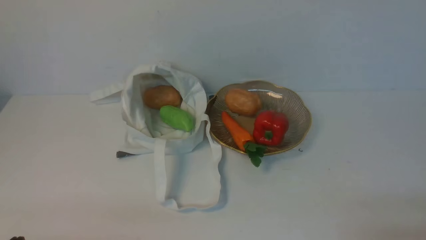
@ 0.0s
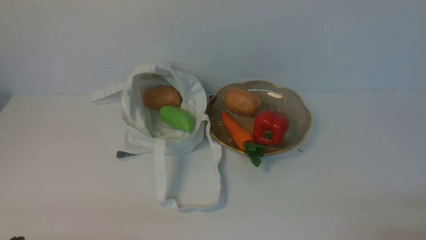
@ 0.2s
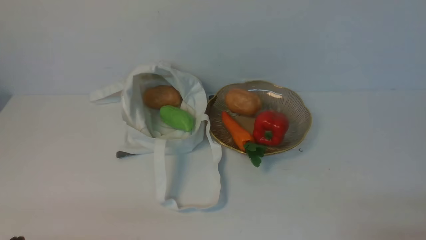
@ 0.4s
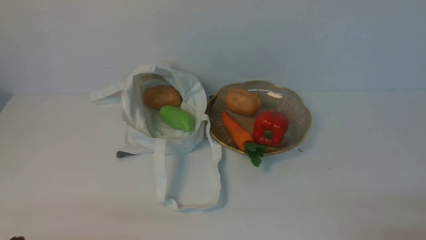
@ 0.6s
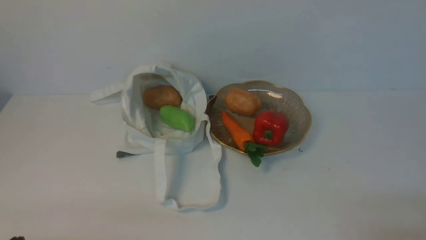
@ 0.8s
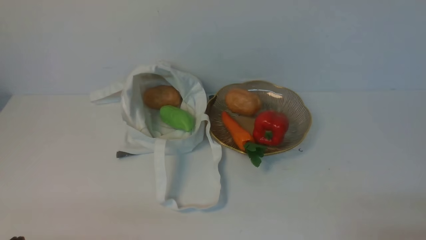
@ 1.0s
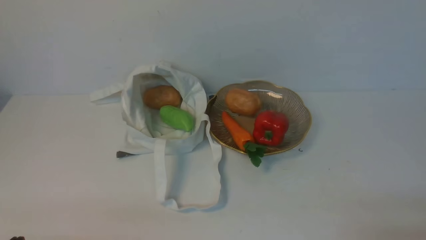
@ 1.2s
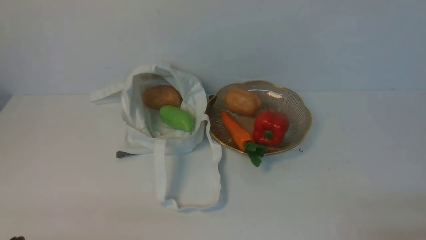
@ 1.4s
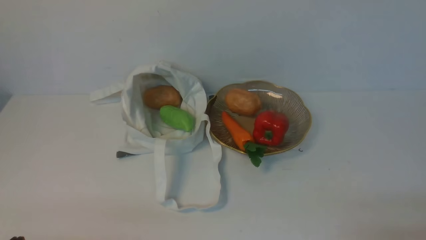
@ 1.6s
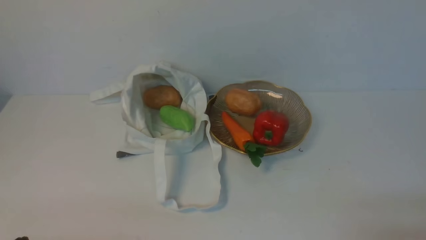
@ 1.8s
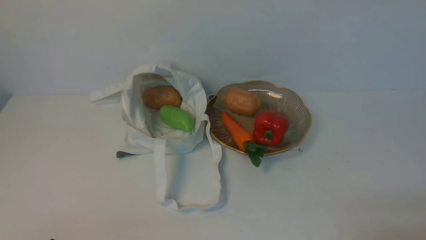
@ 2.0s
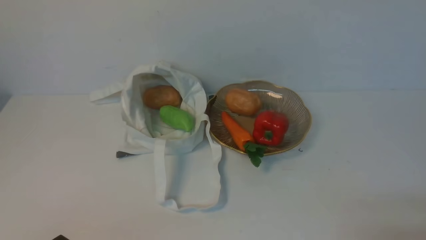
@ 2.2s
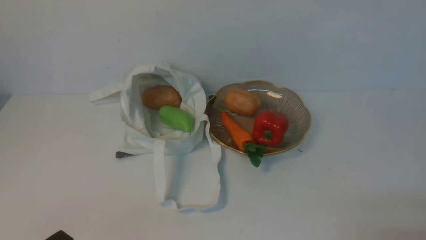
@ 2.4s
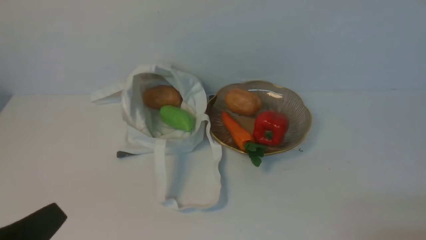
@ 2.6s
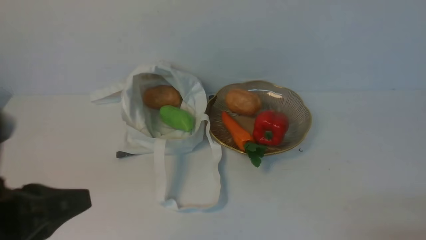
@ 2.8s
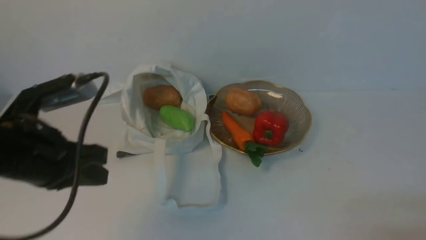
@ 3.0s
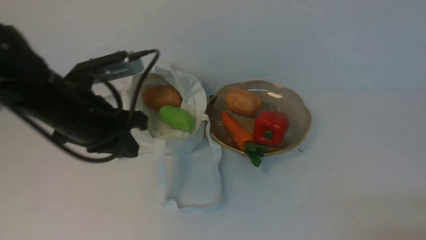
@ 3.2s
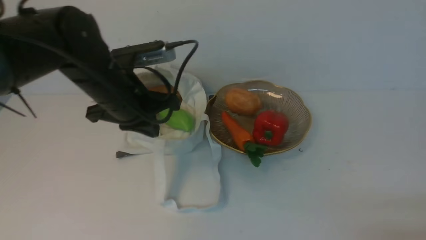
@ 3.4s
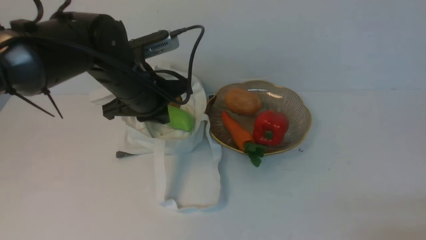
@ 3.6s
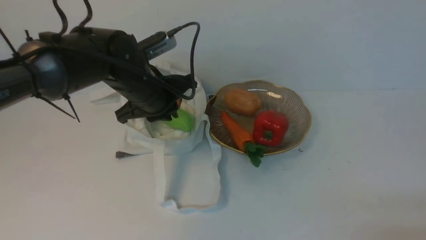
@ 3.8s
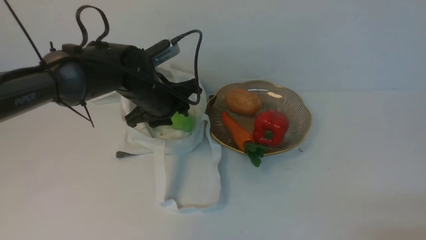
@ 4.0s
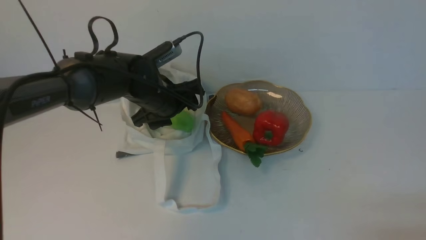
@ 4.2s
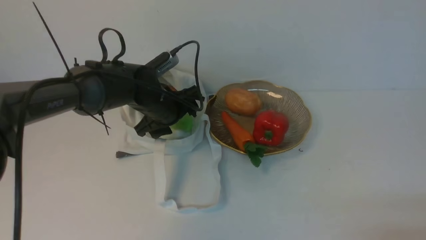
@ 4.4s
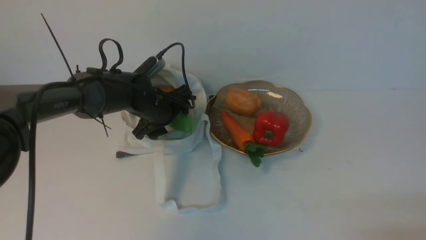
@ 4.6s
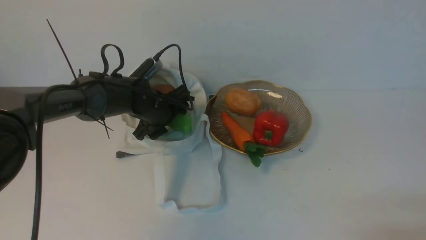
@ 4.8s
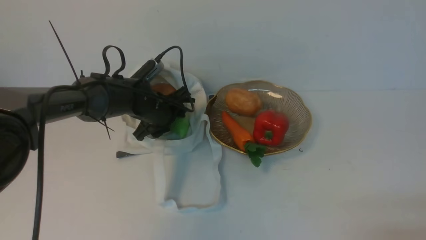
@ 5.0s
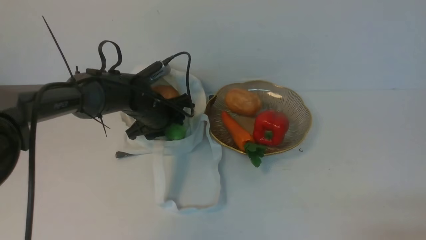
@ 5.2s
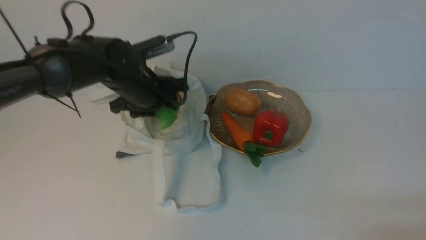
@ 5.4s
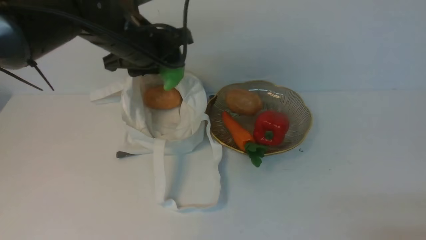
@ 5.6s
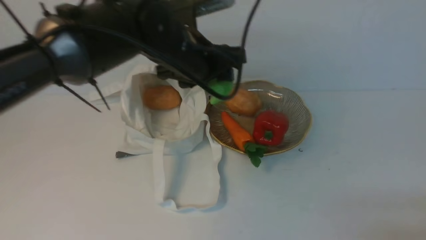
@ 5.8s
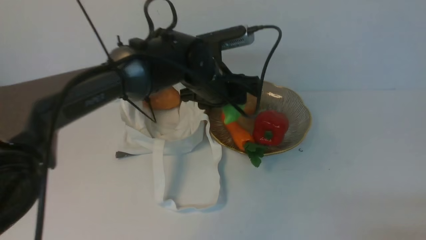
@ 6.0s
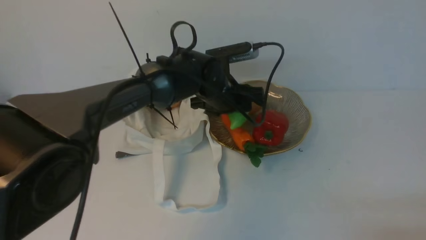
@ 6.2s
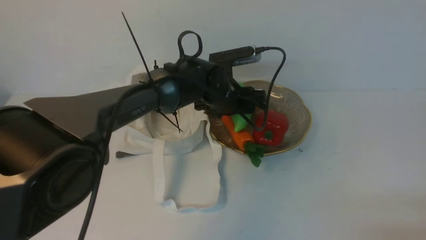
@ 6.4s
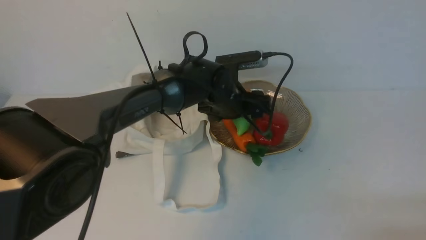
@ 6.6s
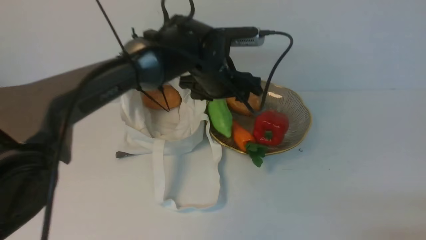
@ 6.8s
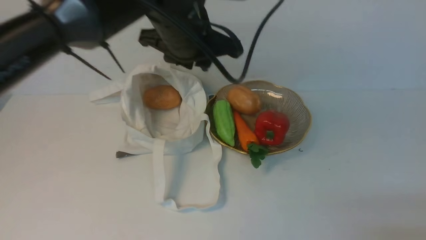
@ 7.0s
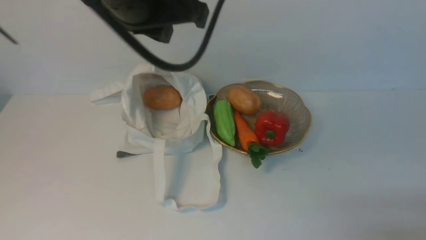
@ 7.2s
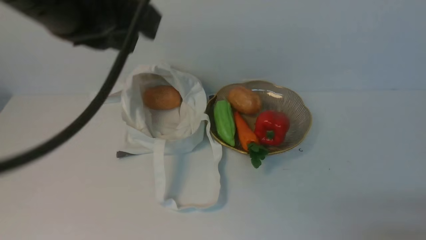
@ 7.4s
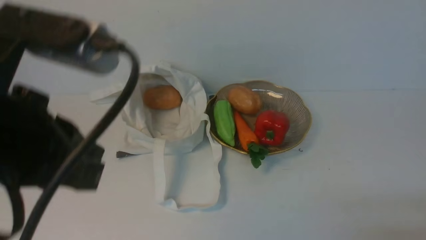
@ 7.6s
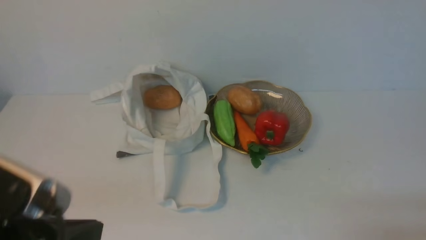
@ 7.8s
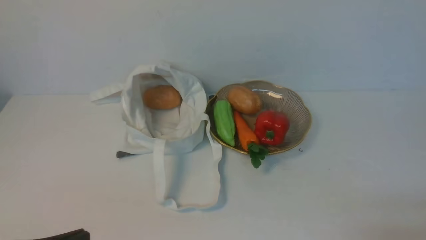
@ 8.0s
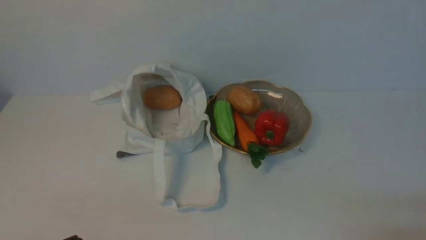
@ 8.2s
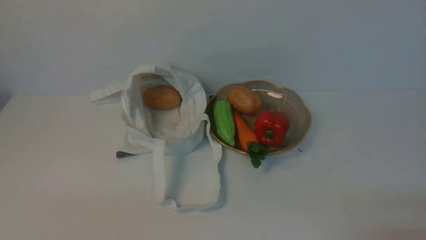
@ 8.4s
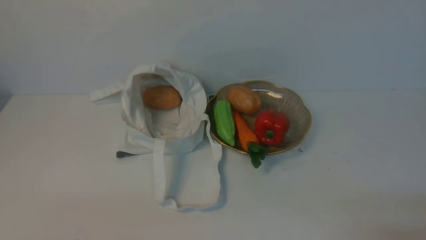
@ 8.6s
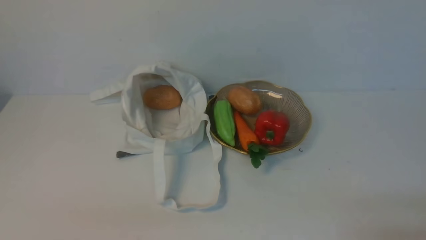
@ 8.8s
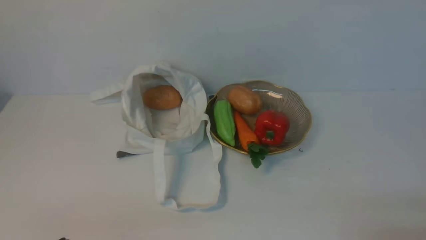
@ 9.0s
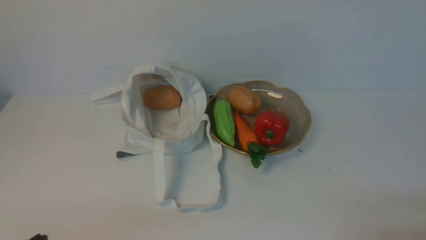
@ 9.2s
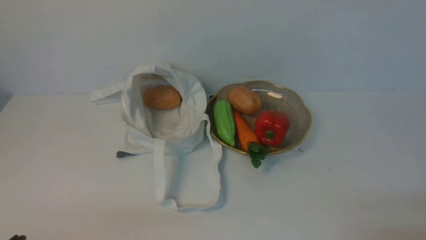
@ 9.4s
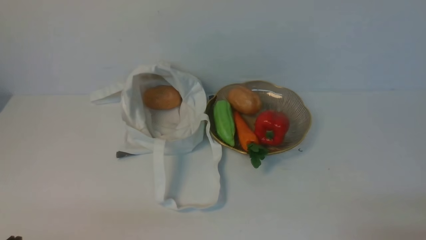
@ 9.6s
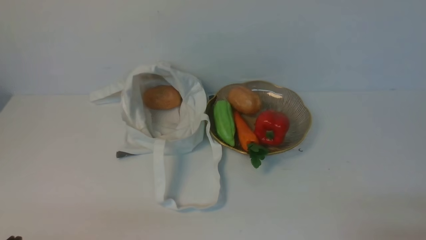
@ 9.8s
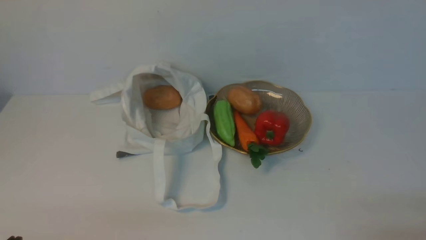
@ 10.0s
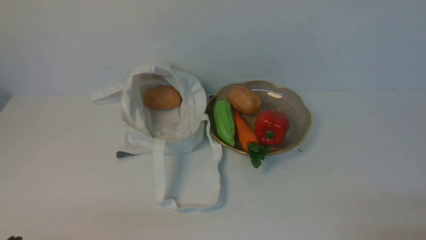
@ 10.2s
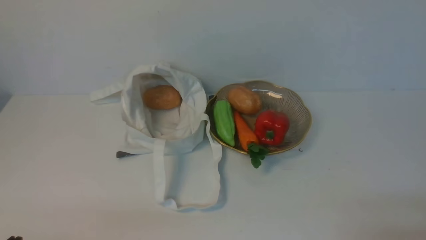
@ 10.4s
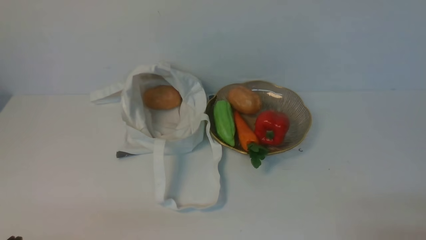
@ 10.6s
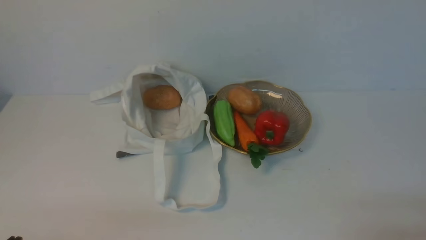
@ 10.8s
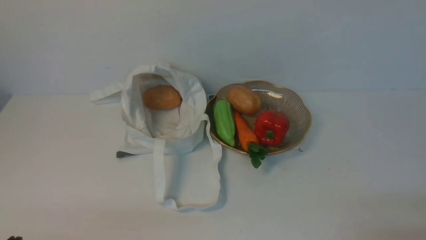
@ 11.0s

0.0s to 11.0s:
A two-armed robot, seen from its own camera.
Task of the whole recording: take vegetables from cloth bag on white table place on plate.
Step, 0.0s to 4.8s: Grasp the bitter melon with left gripper.
Step, 5.2s to 6.8s: Place the bitter melon on the plate with left gripper.
1.6s to 3.2s: The left gripper travels forward and upward by about 25 cm.
3.2s to 4.8s: The left gripper heads forward and downward, covering about 20 cm, and opens up.
4.8s to 6.2s: The left gripper is displaced to the right and upward by some 15 cm.
6.2s to 7.8s: The left gripper is displaced backward and to the left by about 35 cm, and closes up.
7.8s to 9.4s: The left gripper heads downward and to the left, covering roughly 20 cm.

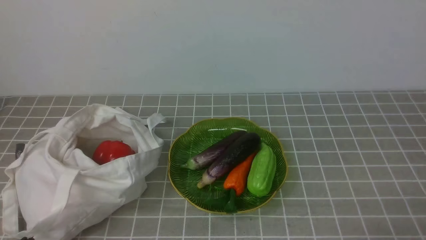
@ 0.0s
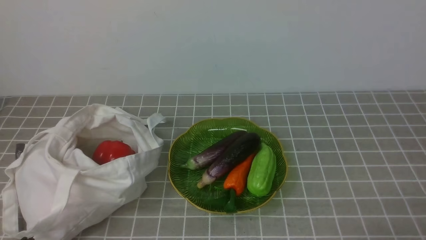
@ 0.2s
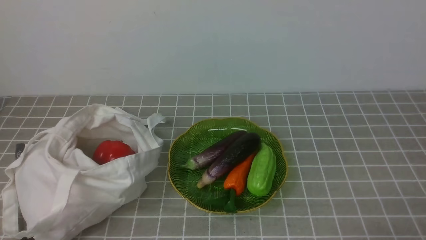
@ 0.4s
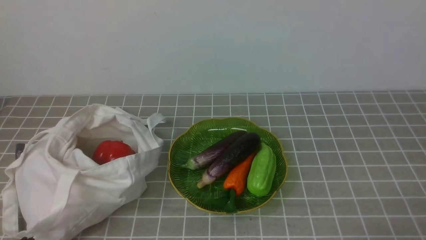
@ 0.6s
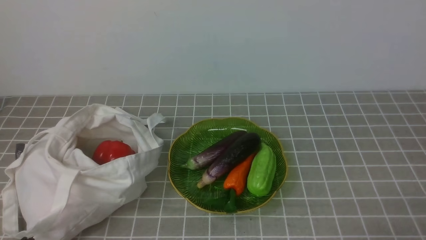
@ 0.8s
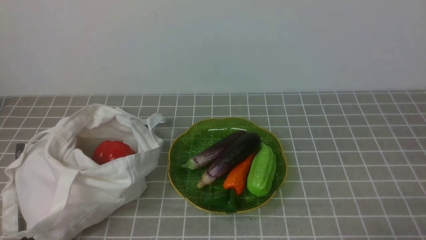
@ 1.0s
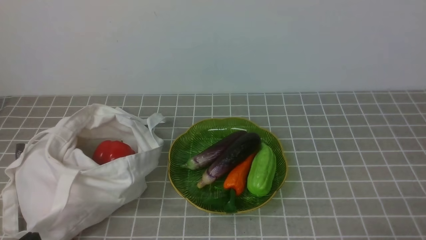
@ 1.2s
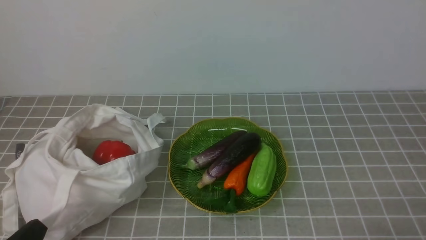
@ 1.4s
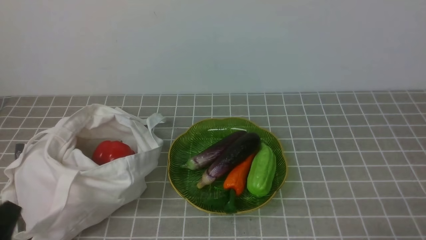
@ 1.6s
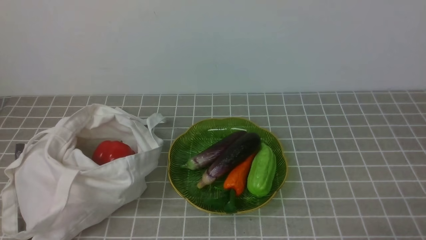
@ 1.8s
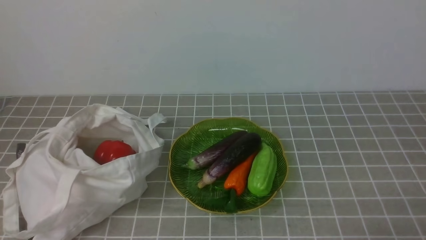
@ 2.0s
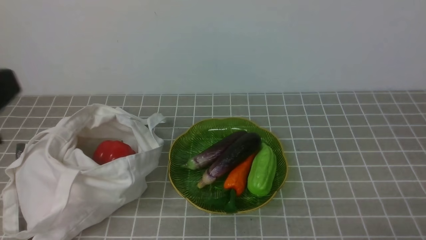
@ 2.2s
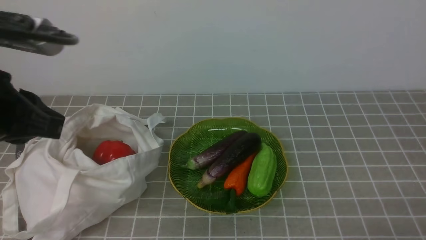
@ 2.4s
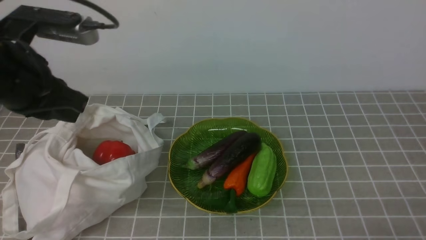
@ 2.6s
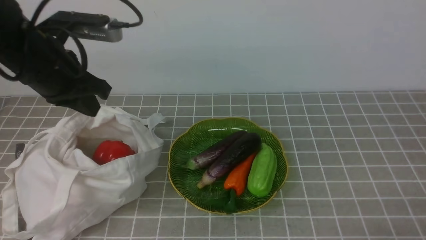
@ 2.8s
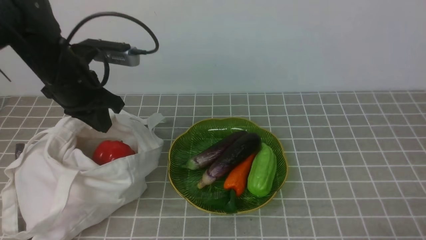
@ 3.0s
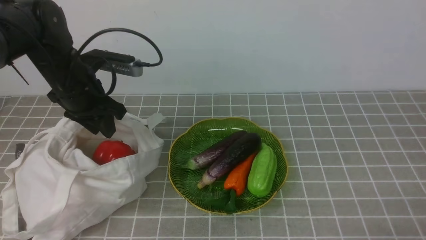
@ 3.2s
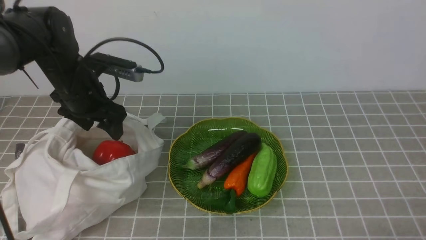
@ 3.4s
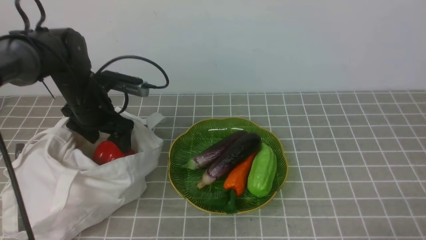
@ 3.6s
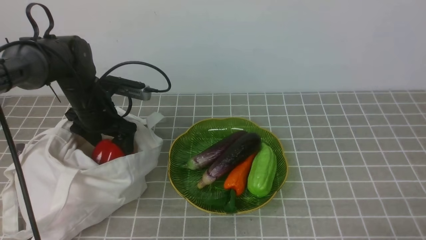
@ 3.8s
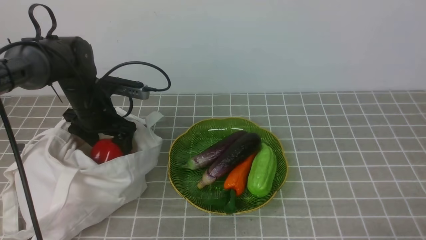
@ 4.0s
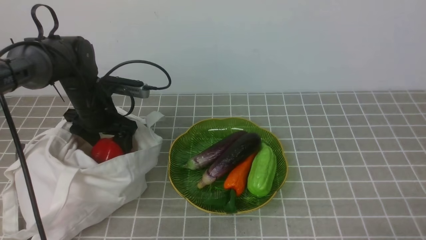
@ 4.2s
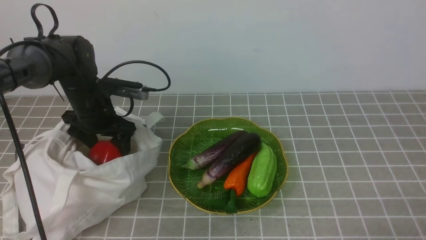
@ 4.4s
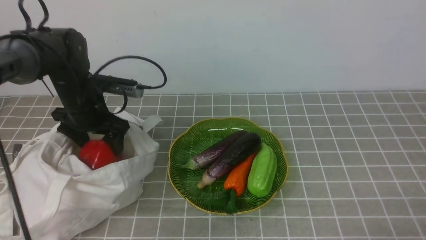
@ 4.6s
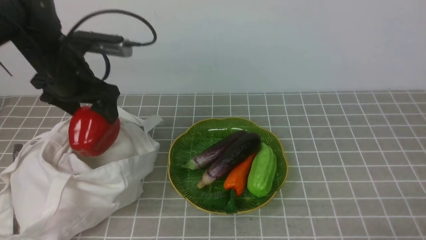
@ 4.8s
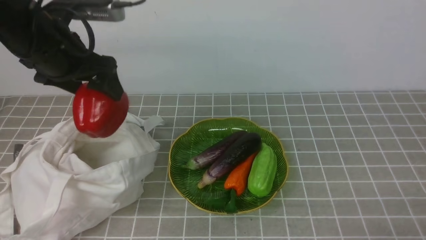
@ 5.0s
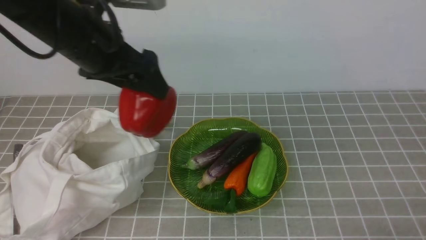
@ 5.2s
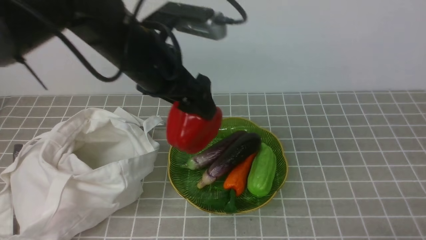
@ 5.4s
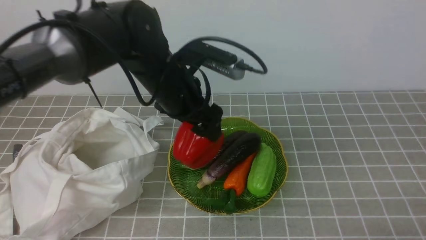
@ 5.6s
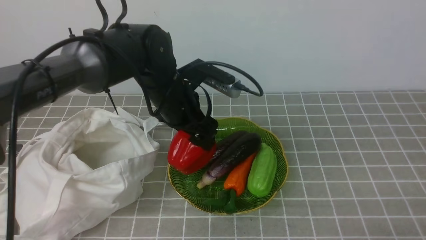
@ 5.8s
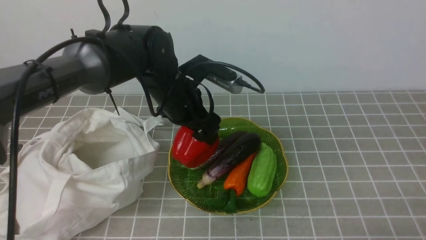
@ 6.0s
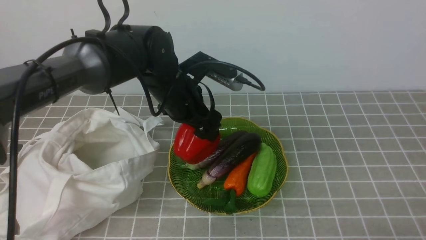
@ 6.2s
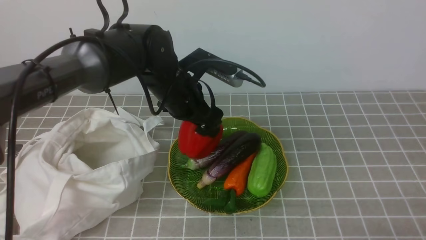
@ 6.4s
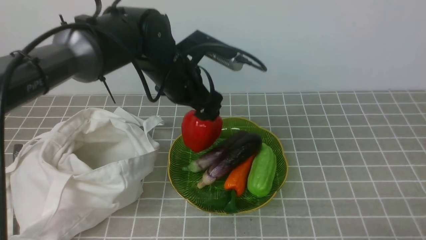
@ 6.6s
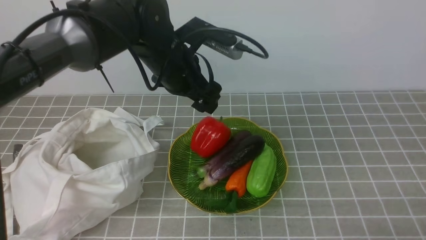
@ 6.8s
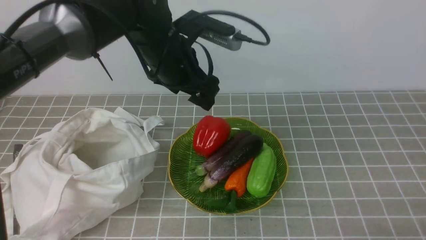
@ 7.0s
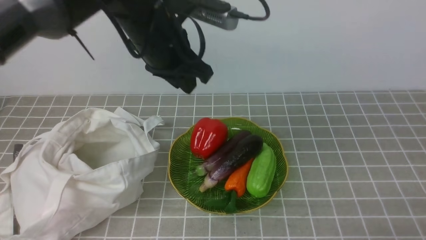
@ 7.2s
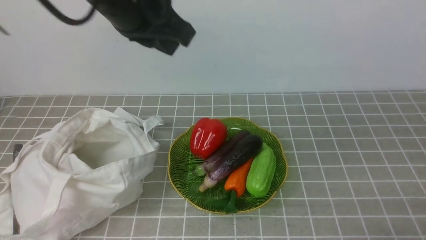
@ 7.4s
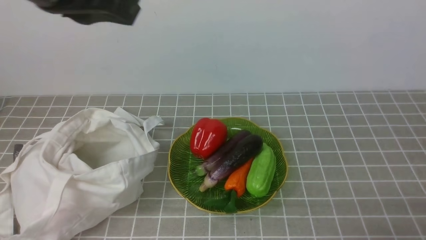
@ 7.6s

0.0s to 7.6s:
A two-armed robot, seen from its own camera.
Task of the whole recording: take vegetables from bag on grey coffee tablecloth place on plate.
Step, 0.0s to 4.0s: Grasp the bell pepper with left gripper.
Step, 4.2s to 7.2s: Place the bell pepper on the plate with left gripper.
1.6s to 3.0s: The left gripper goes about 30 cm forward.
3.0s to 4.6s: The left gripper is displaced downward and forward by some 10 cm, and opens its fingers.
4.6s to 6.0s: The left gripper heads to the right, covering about 15 cm.
6.0s to 7.6s: The left gripper goes about 25 cm upward and backward, and closes up.
